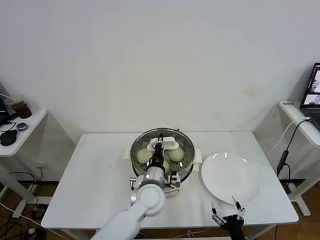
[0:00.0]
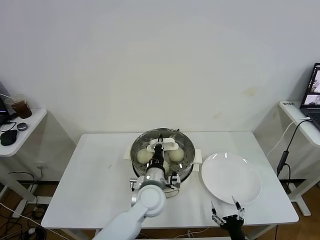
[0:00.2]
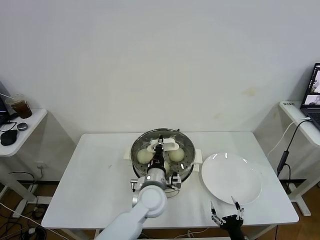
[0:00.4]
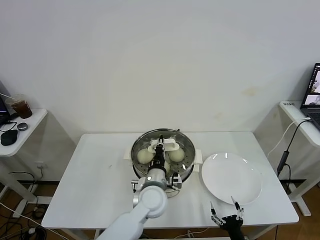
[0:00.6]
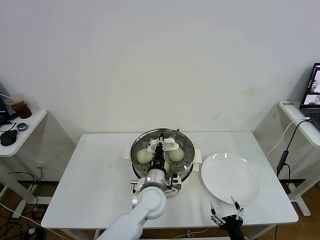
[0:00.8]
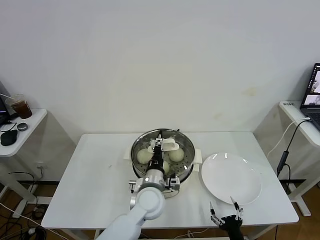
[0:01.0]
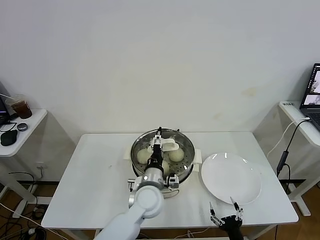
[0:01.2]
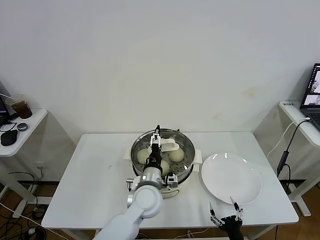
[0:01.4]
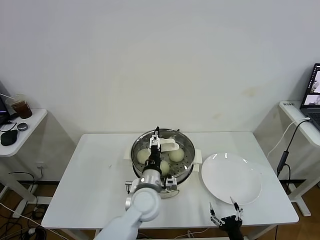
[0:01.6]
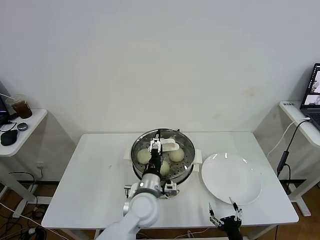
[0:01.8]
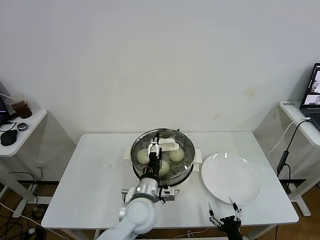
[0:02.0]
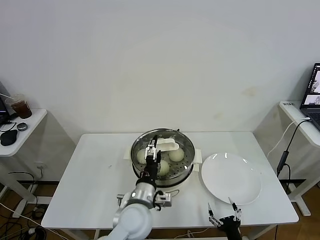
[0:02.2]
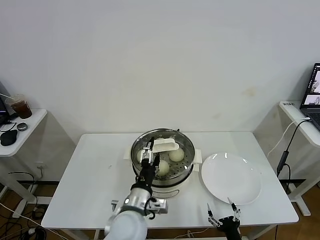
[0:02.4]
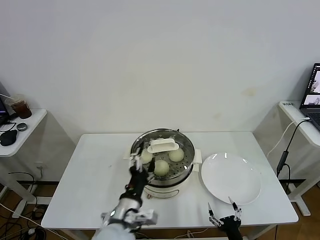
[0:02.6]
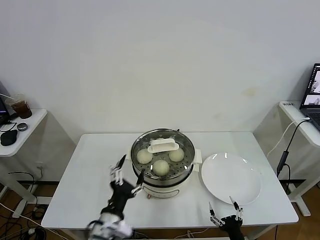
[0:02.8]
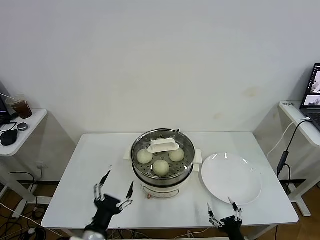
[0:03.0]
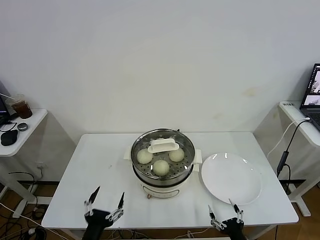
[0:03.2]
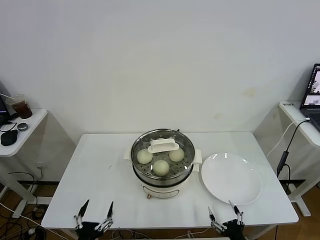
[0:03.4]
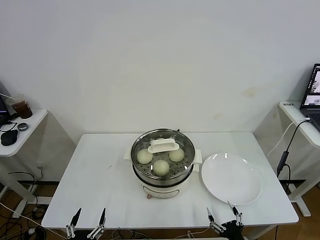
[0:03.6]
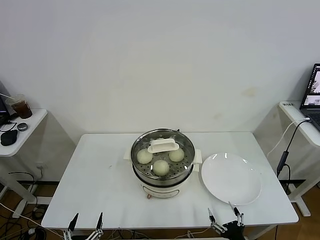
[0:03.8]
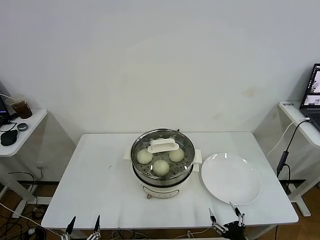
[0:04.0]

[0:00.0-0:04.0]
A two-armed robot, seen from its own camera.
Task of the whole recording: take steamed baozi put them in steamer.
Step, 0:00.0 to 0:02.2: Place the pot lid on the steamer with left gripper.
0:00.0 to 0:01.4: The left gripper opens.
0:01.4 to 0:02.6: The left gripper moves backward and to the left, some 15 cm.
0:02.6 to 0:04.0: The left gripper is displaced to the left, backward and downward by some 30 cm.
